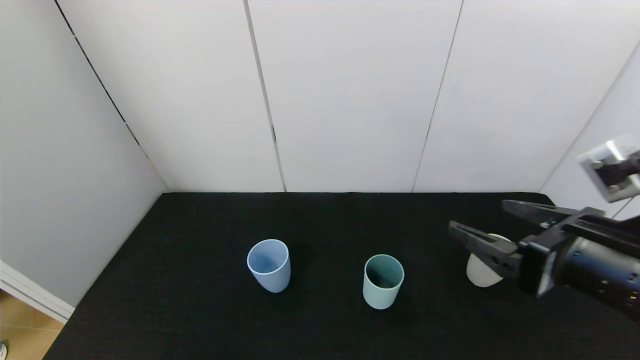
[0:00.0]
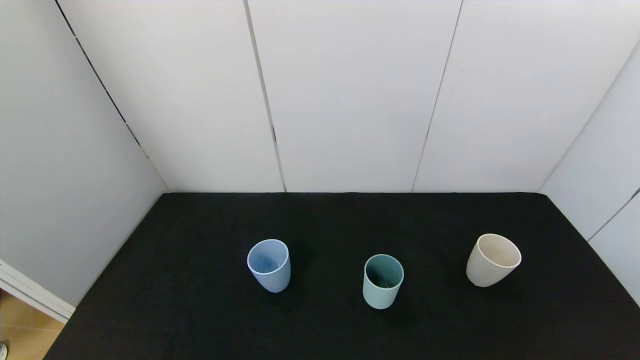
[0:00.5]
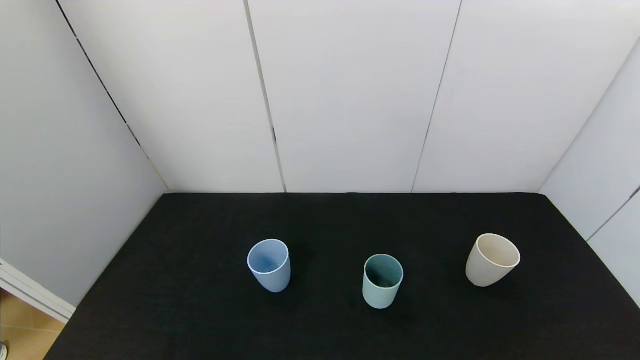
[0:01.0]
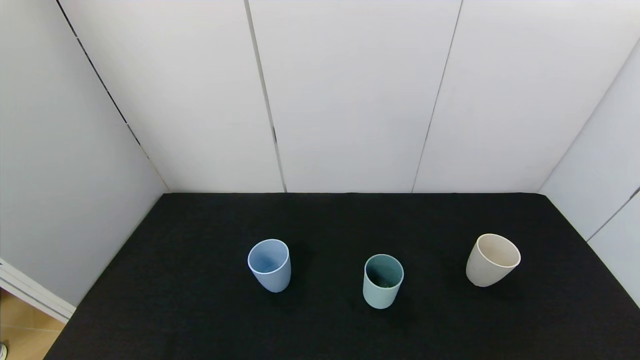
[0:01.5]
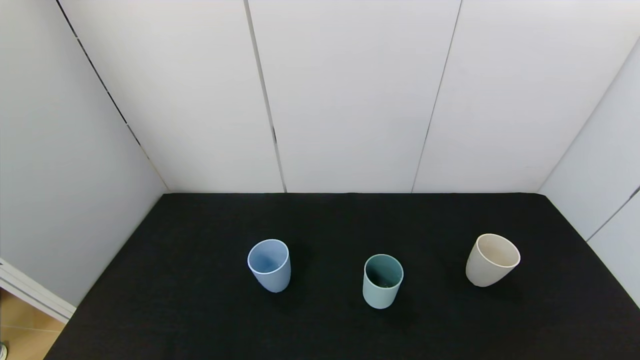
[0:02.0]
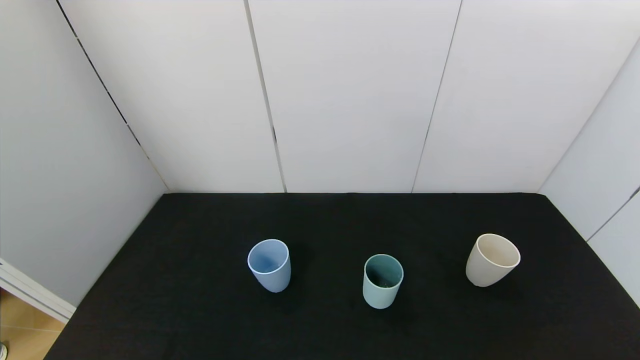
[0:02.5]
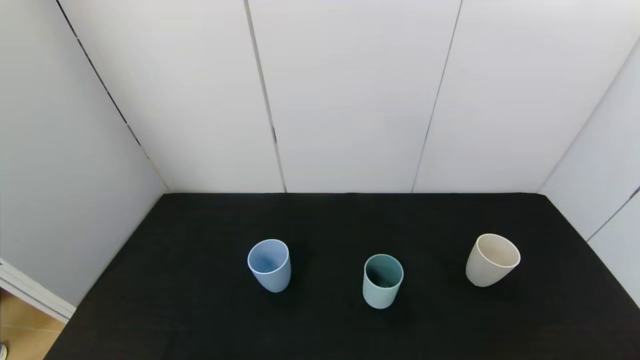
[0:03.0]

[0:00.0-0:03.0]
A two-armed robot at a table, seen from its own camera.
Task of the whole recording: use the gripper to pour the water into the other two cups on black table.
0:00.0 to 0:01.5: The right gripper is displaced backward and to the right by approximately 25 cm.
